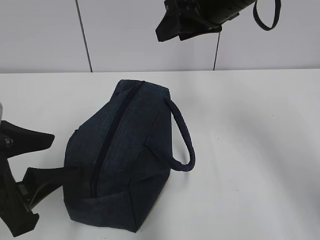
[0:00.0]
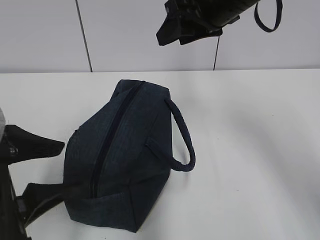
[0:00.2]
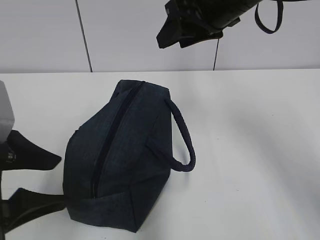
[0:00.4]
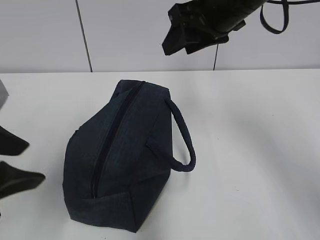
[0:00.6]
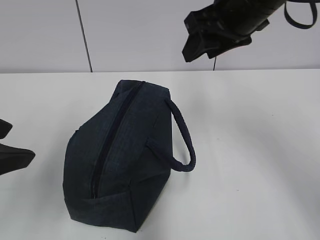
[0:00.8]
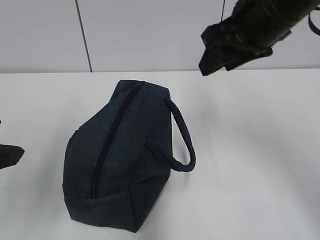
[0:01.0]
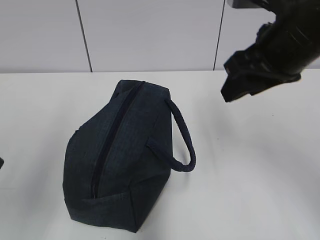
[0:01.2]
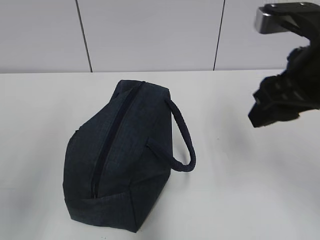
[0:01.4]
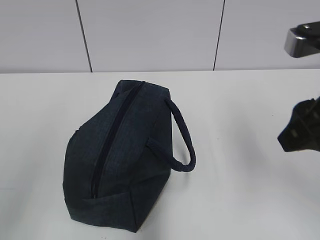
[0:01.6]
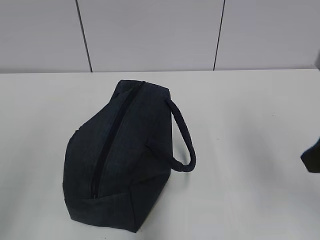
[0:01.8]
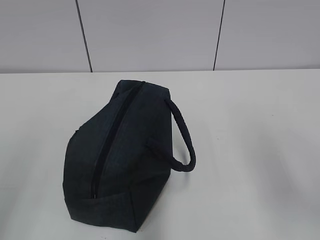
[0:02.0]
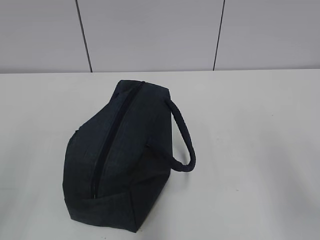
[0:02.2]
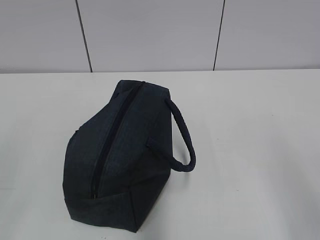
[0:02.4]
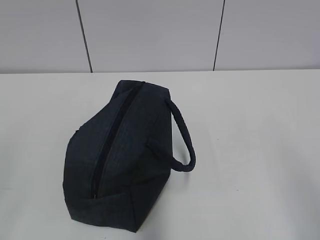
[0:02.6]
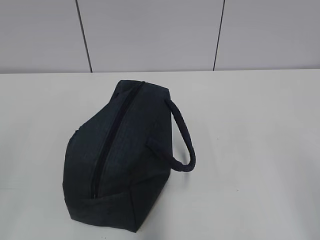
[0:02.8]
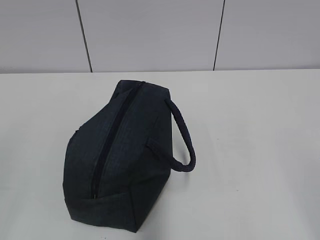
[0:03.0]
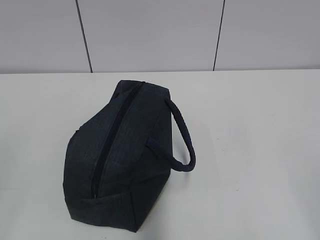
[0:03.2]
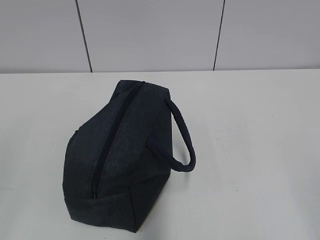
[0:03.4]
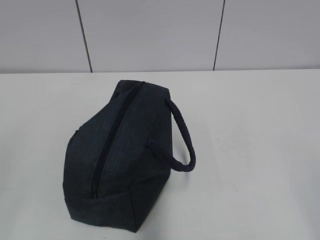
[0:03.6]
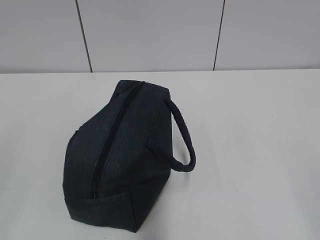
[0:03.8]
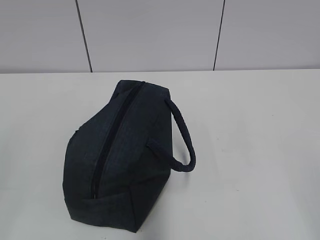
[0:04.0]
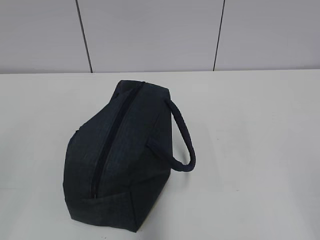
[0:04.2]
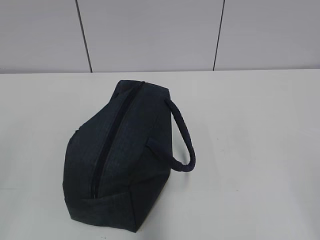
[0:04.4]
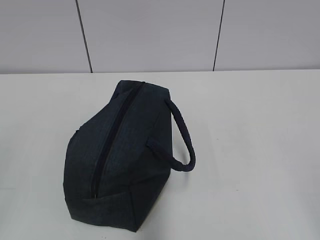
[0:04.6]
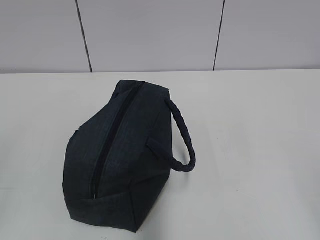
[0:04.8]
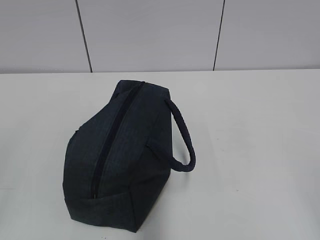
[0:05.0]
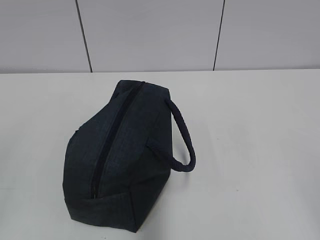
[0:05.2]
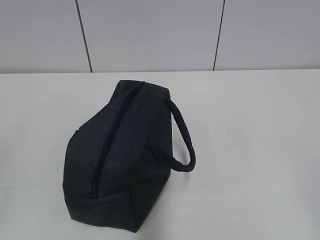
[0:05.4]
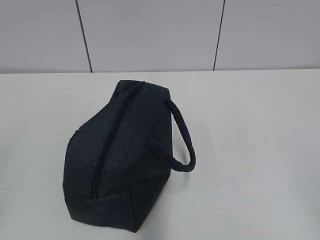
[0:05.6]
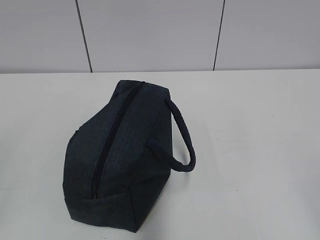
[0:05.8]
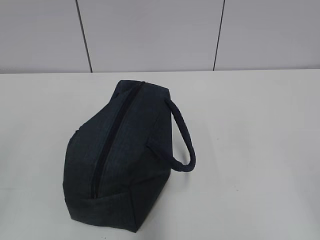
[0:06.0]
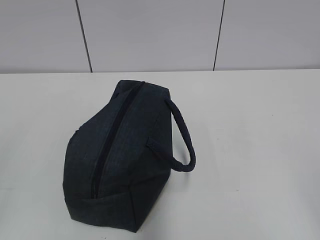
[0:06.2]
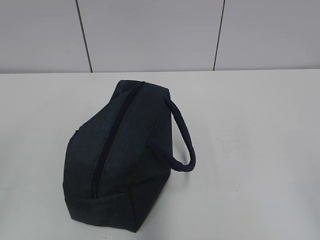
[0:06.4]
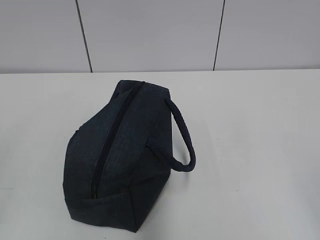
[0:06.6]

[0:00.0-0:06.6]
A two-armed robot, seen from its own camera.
0:00.0 to 0:01.6: The right gripper travels backward and to the right by some 20 cm. The left gripper is displaced upward, backward and to the left by some 15 cm.
0:01.6 to 0:03.2: The right gripper moves backward, about 20 cm.
0:05.0 to 0:06.6: The two grippers keep their place.
